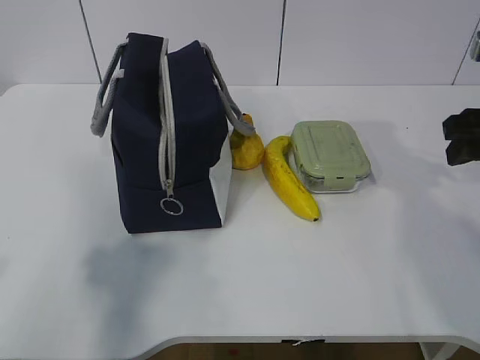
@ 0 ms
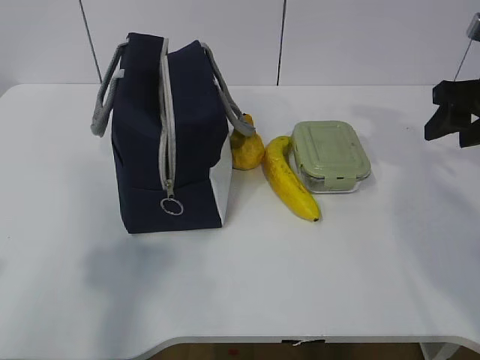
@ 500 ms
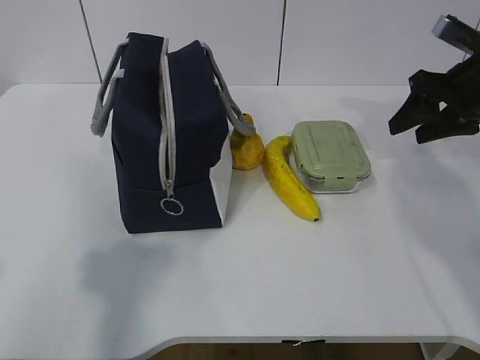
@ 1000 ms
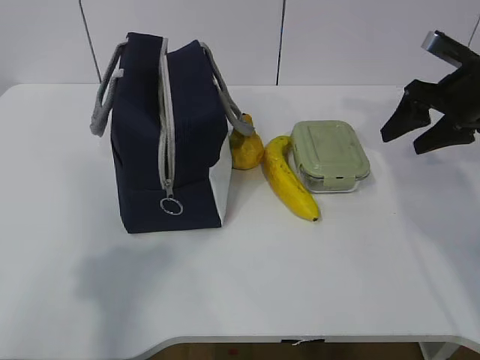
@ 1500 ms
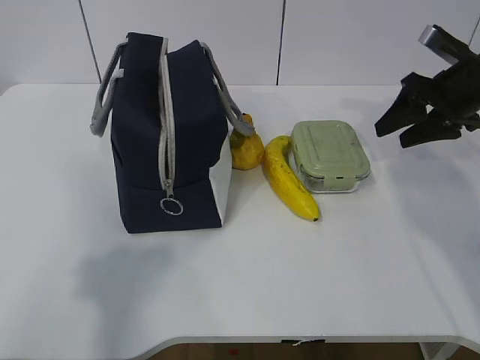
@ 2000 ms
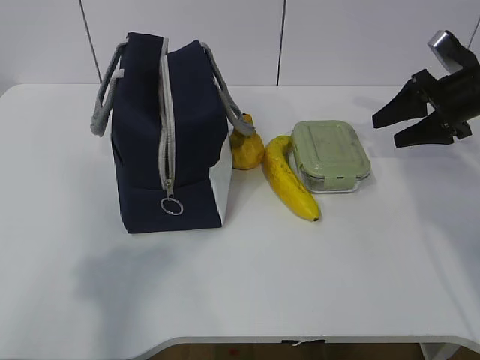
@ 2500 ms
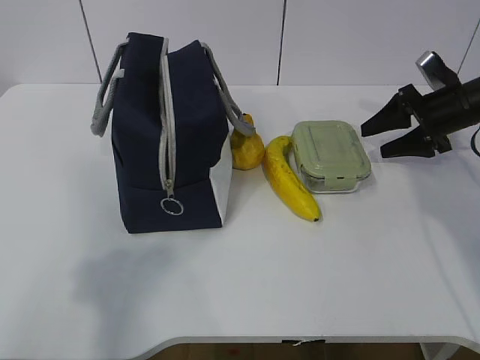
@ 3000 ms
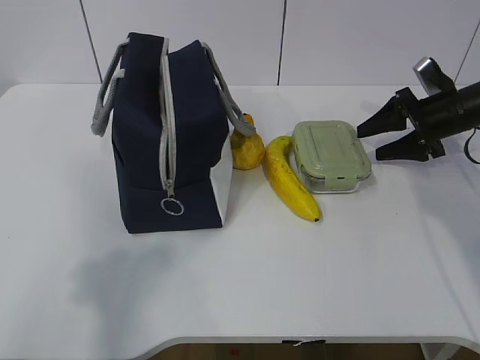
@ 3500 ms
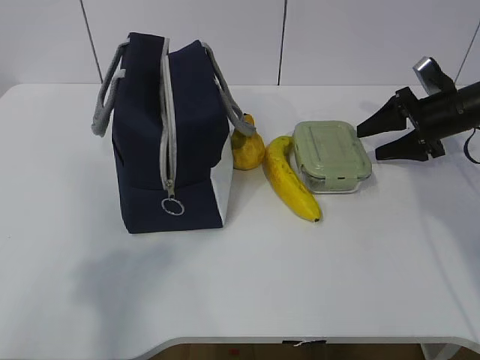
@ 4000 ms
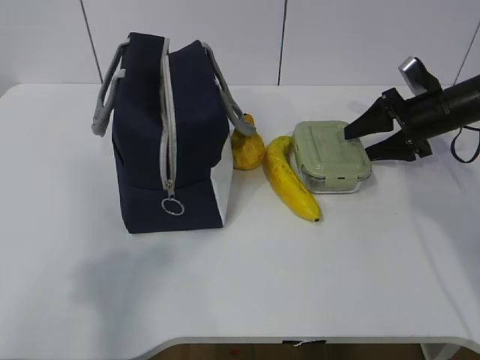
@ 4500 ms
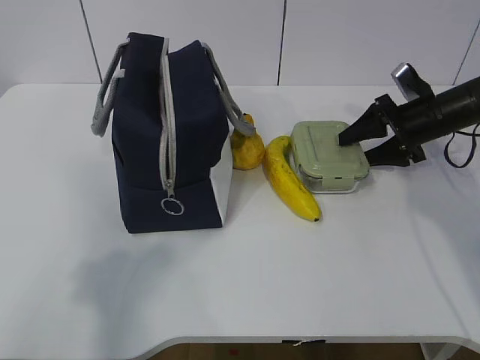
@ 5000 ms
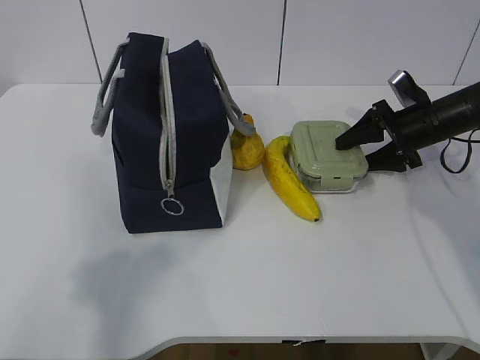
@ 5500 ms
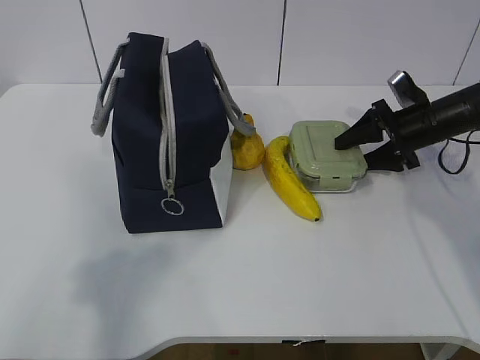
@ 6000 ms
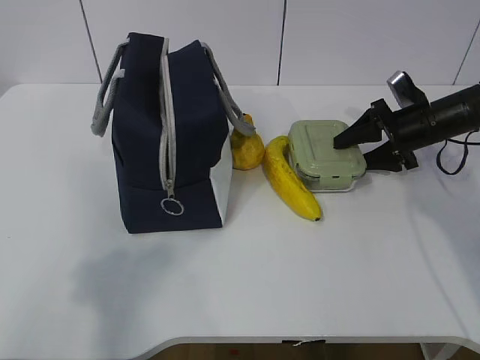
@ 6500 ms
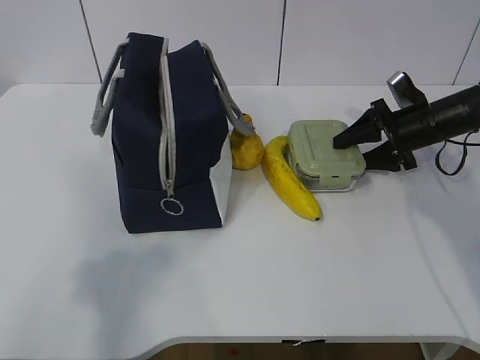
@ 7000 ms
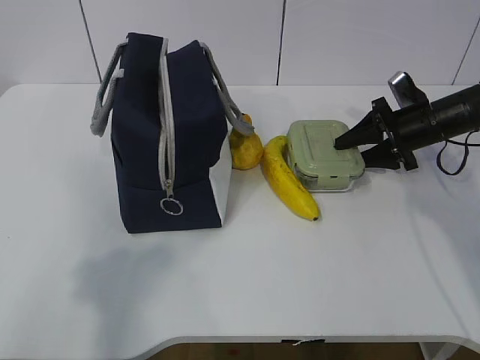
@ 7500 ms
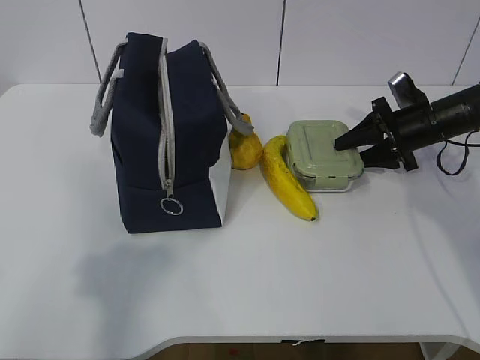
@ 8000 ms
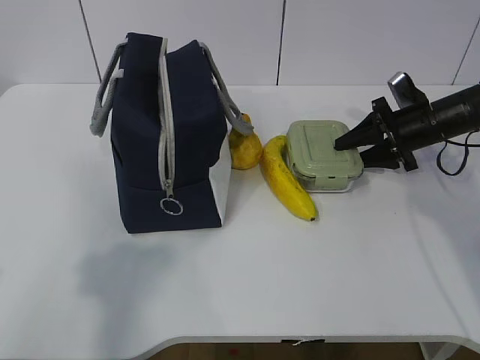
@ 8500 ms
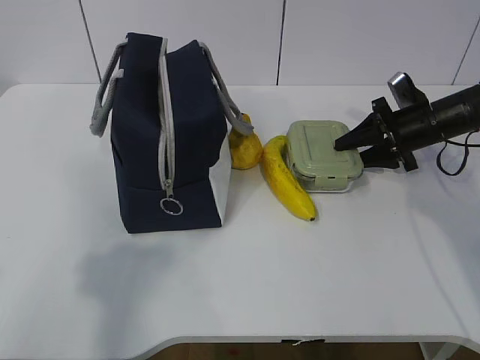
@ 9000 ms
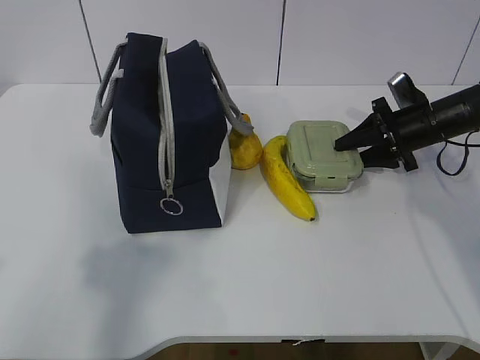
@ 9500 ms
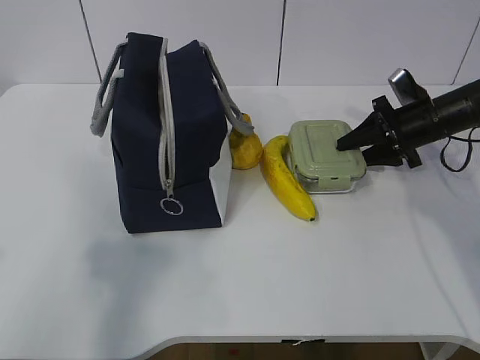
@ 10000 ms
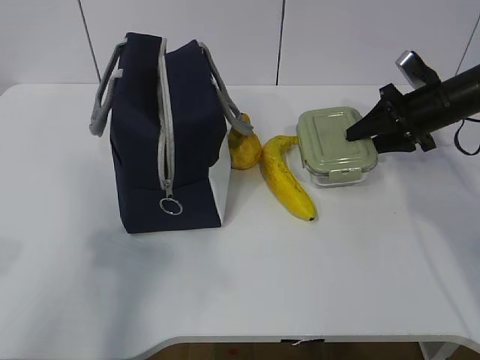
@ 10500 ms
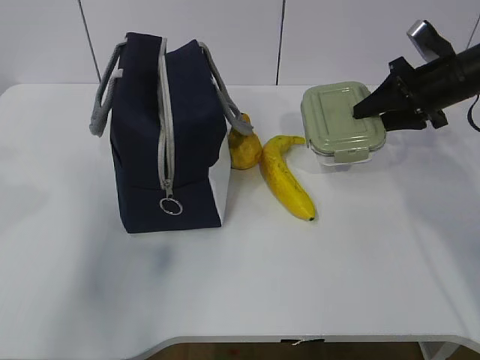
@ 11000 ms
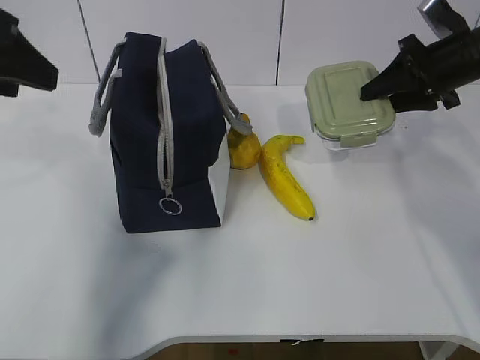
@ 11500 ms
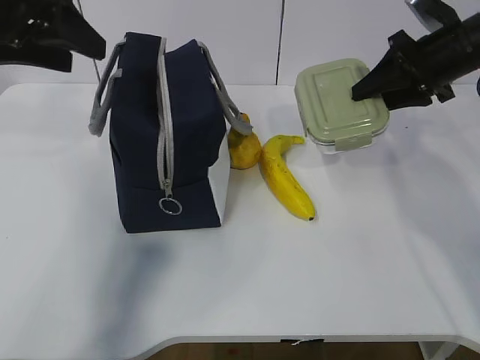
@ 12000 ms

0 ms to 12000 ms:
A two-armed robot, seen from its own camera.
Step, 0 ms to 6500 ms: Grab the lunch box with your right hand.
Step, 7500 ms to 11000 ms: Grab the lunch bag with your left hand.
0 ms to 2000 ms: The right gripper heads forward, covering about 10 cm.
2000 ms to 4000 ms: The right gripper heads downward, covering approximately 5 cm.
4000 ms to 6000 ms: The grippers move only a little.
6000 ms to 8000 ms: The two grippers keep their place.
8000 ms to 10000 ms: The grippers move only a little.
10000 ms to 12000 ms: The right gripper goes roughly 10 cm upward; the left gripper is displaced forward by some 25 cm.

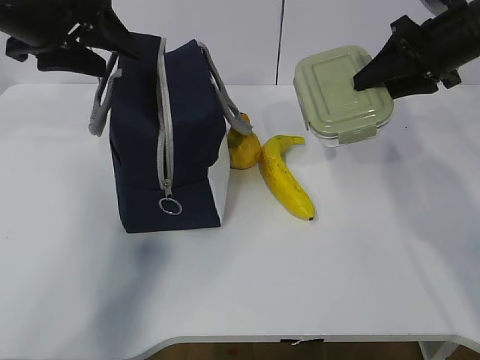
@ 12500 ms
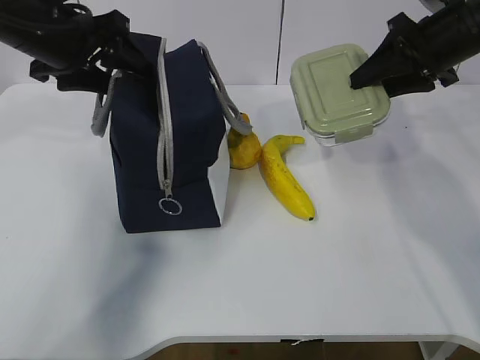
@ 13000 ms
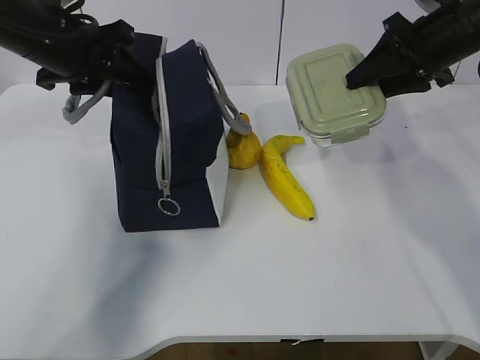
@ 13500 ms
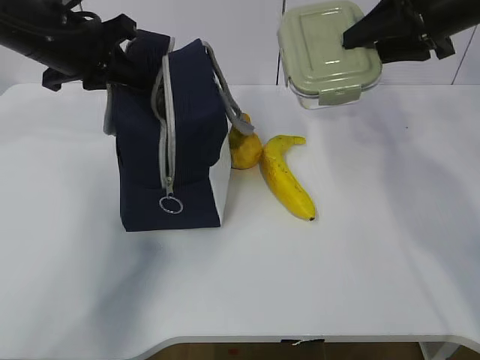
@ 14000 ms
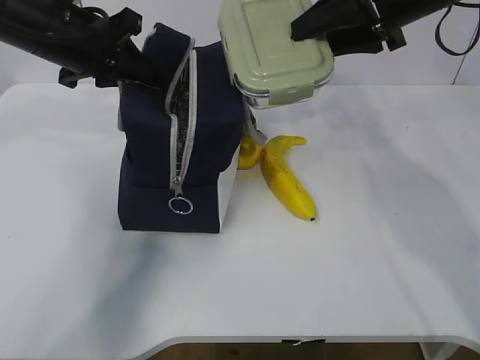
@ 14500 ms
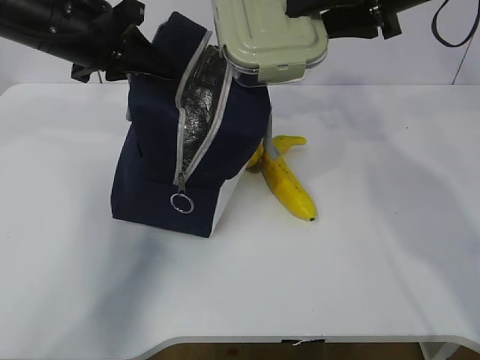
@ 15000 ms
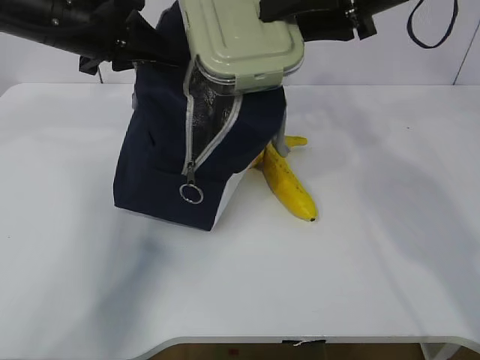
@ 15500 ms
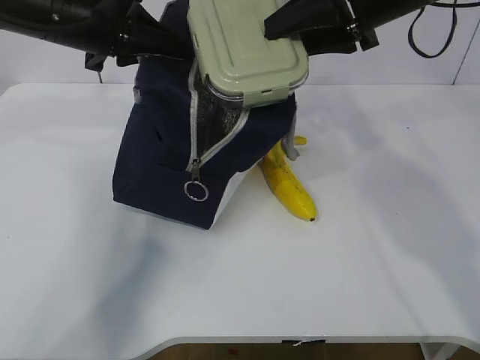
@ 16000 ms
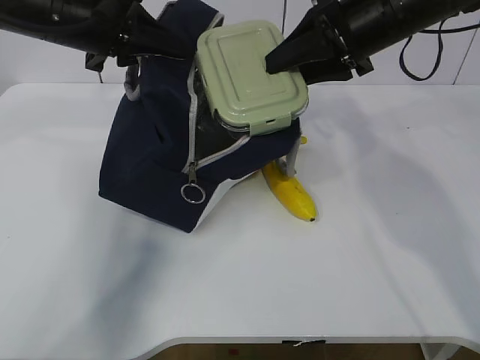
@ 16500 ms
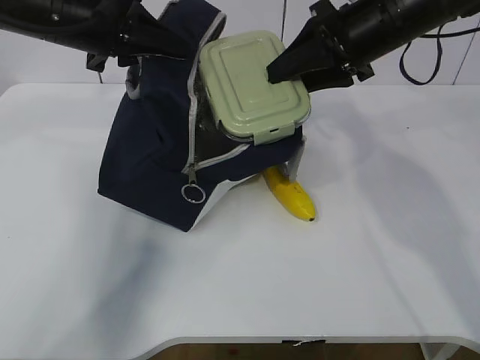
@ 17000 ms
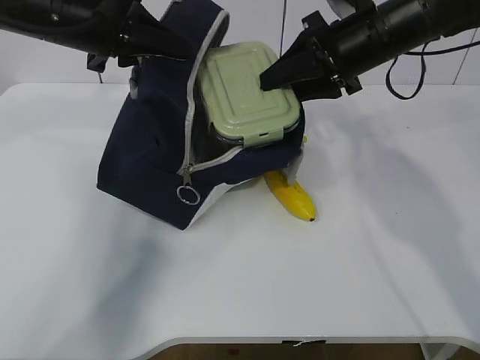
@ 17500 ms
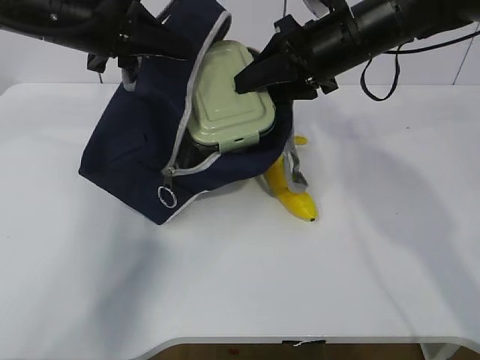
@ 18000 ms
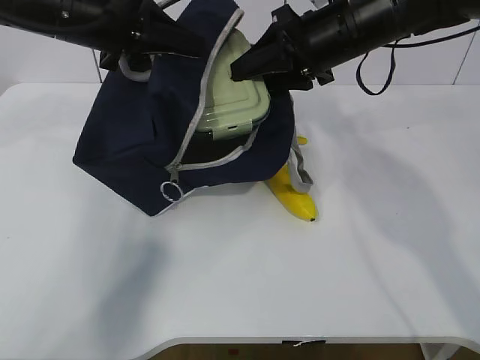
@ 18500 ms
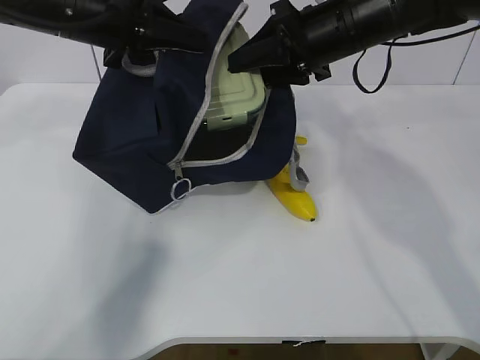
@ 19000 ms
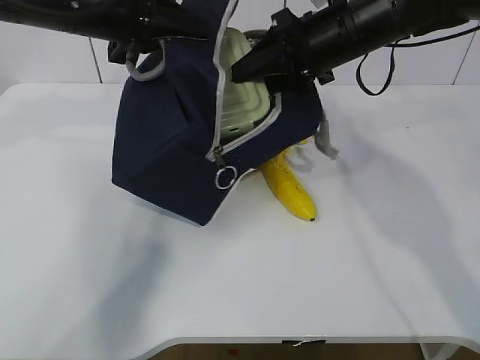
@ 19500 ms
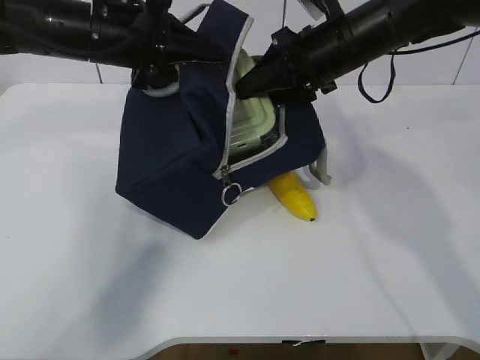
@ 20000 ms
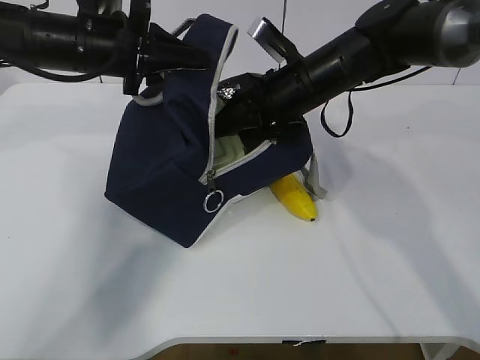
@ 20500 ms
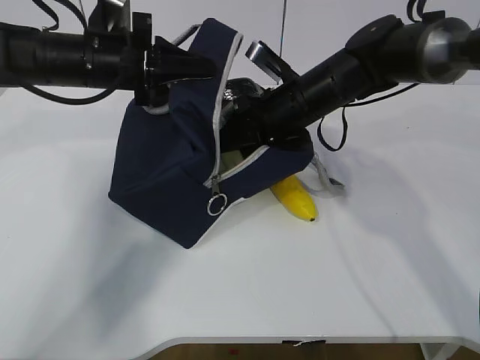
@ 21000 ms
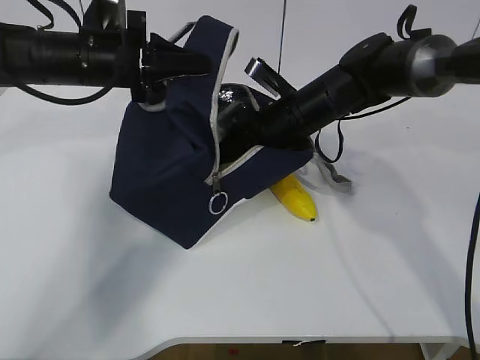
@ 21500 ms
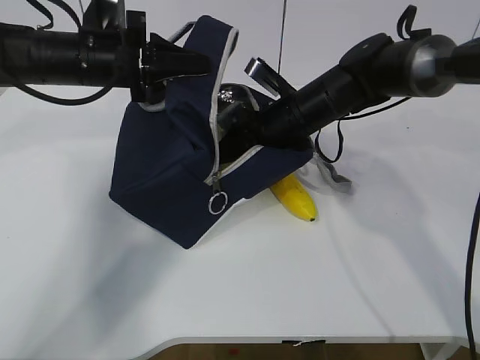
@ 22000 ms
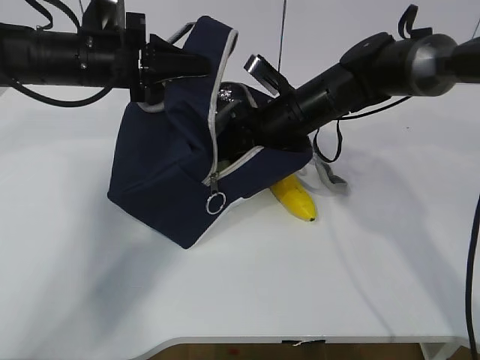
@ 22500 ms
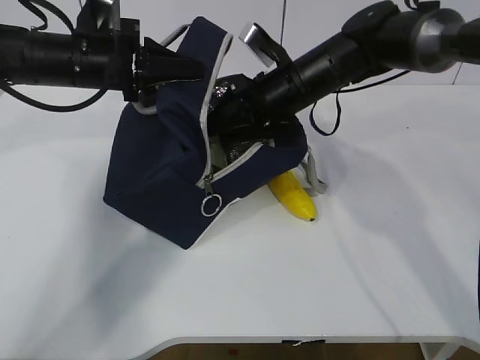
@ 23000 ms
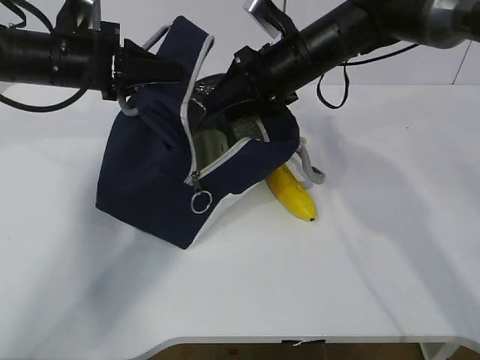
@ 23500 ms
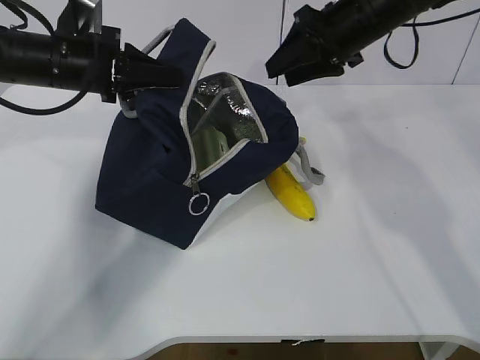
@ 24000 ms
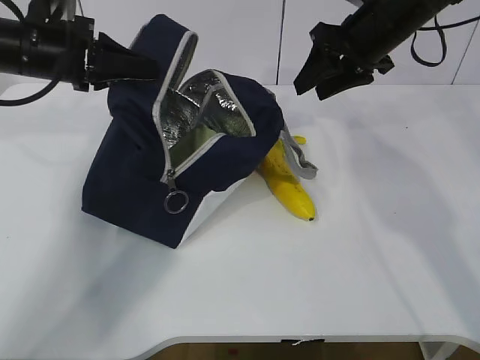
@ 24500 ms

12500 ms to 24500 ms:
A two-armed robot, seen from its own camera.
Step, 12500 ms to 18000 ms: Place it into the bag with your right hand.
Step, 18500 ms to 21500 ms: Grab the banana with your right hand.
12500 ms to 14500 ms: The left gripper shifts by about 5 cm, and closes up; the right gripper moves to the left and upward, about 10 cm.
14500 ms to 16500 ms: The grippers stay close to where they were, moving slightly.
16500 ms to 18500 ms: The grippers move only a little.
18500 ms to 20500 ms: The right gripper travels downward by about 5 cm. Meanwhile the left gripper ends up roughly 5 cm from where it was.
20500 ms to 22500 ms: The right gripper changes place by about 5 cm.
22500 ms to 24500 ms: The left gripper heads to the left, covering about 5 cm; the right gripper heads upward and to the right, covering approximately 15 cm.

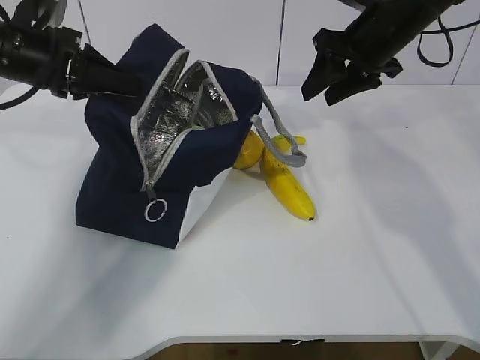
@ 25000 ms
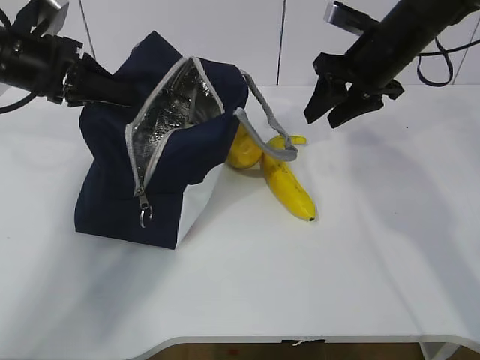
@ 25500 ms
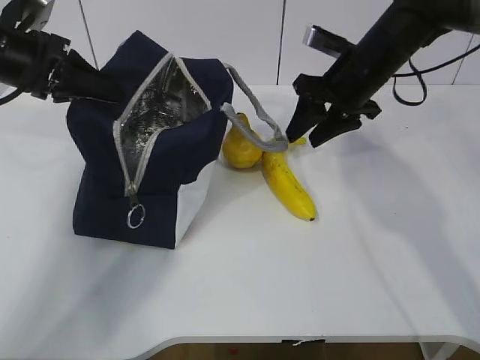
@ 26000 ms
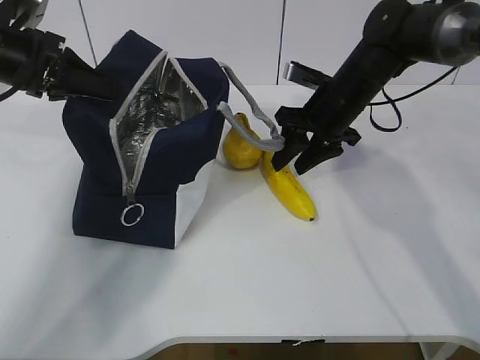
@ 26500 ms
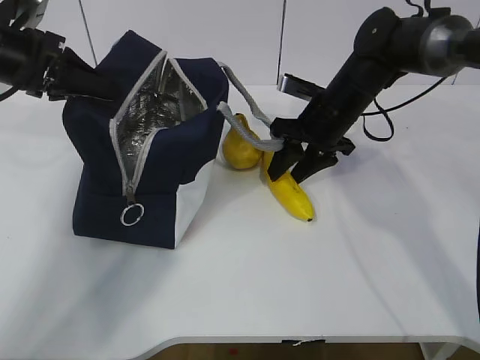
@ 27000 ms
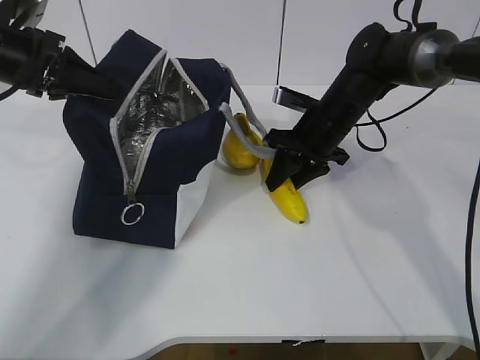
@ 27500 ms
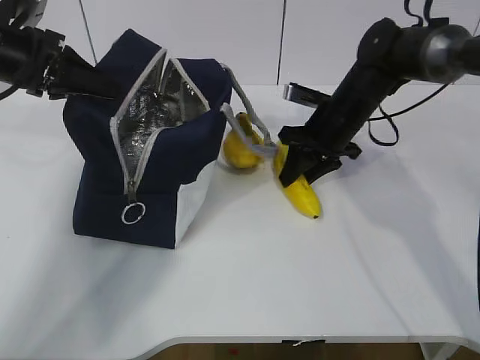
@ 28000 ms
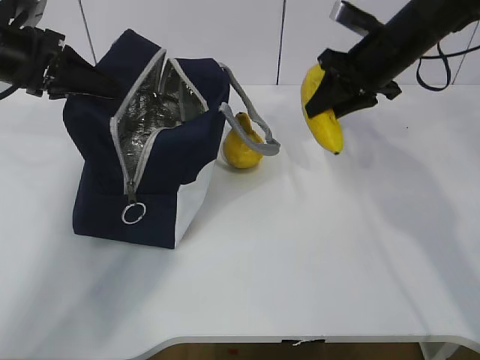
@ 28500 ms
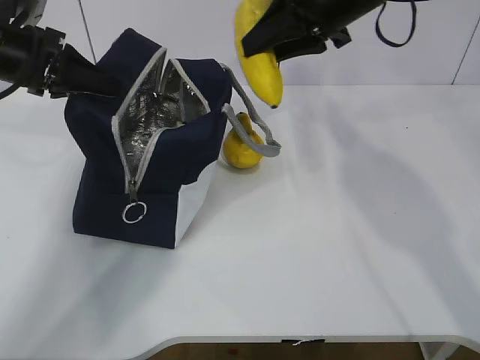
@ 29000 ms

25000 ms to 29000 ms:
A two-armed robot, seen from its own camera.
25000 ms to 27000 ms: The right gripper goes about 10 cm downward.
27000 ms to 29000 ms: The right gripper shifts about 15 cm upward.
